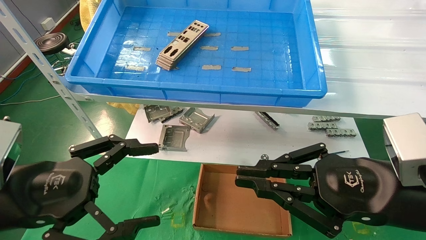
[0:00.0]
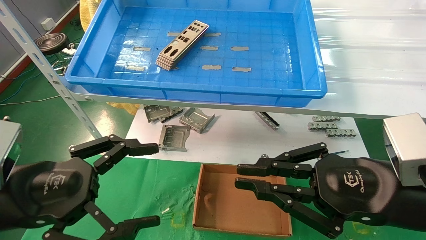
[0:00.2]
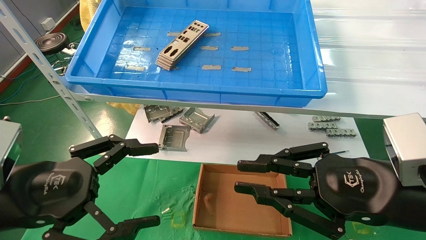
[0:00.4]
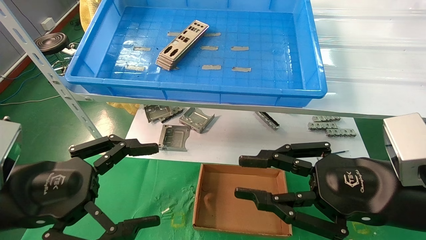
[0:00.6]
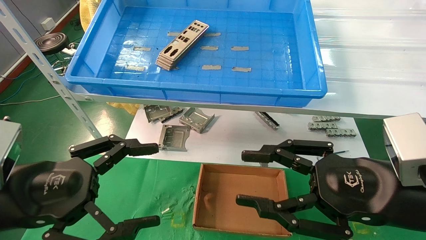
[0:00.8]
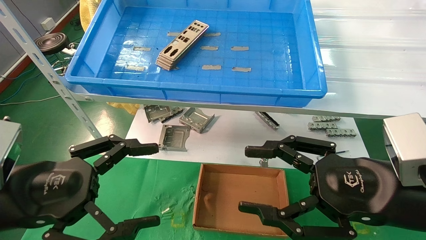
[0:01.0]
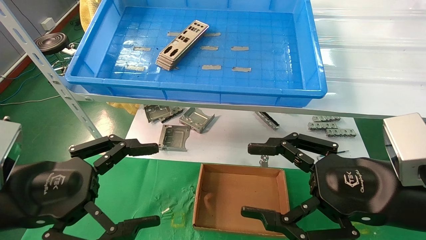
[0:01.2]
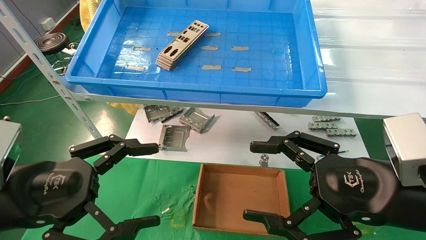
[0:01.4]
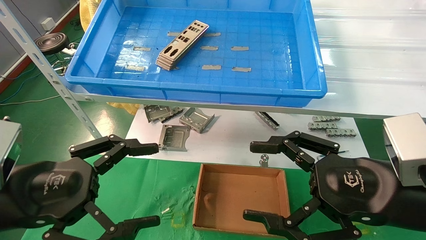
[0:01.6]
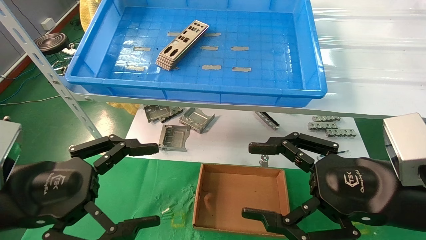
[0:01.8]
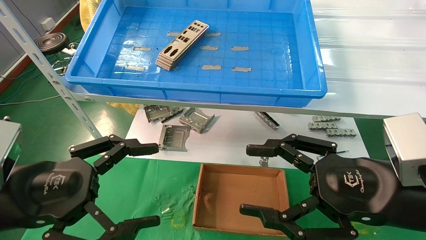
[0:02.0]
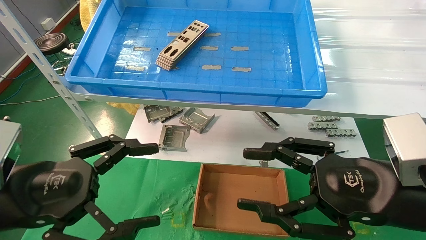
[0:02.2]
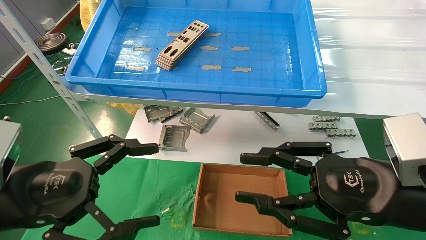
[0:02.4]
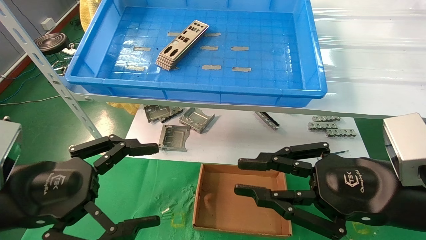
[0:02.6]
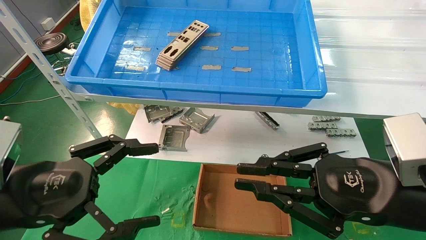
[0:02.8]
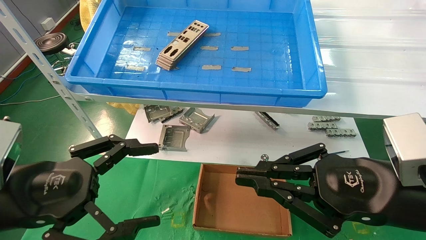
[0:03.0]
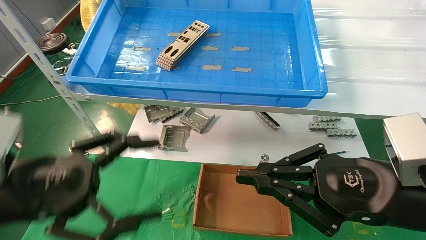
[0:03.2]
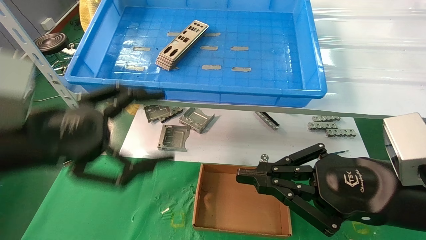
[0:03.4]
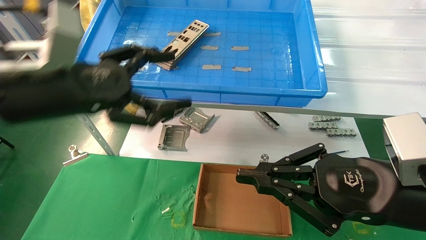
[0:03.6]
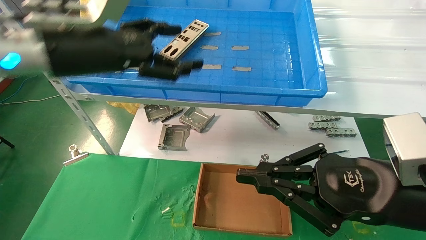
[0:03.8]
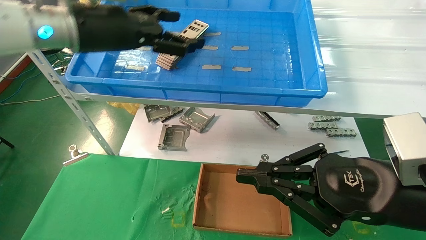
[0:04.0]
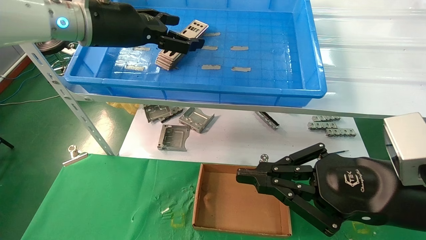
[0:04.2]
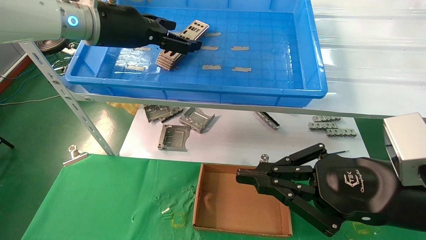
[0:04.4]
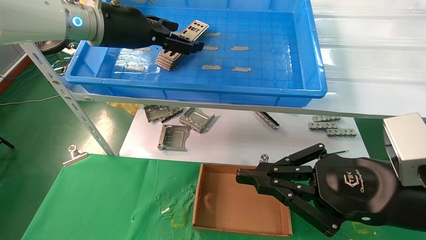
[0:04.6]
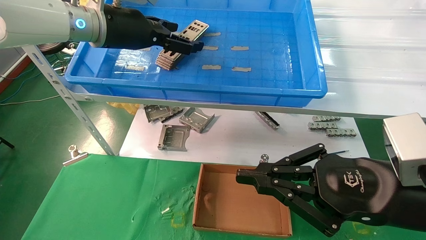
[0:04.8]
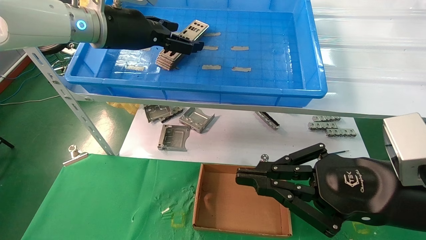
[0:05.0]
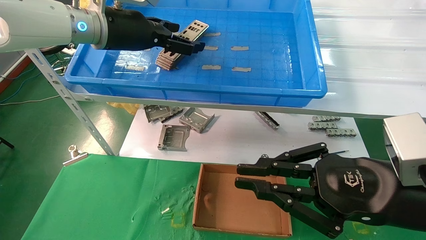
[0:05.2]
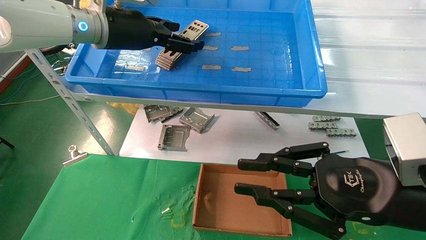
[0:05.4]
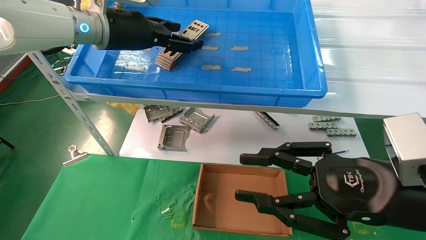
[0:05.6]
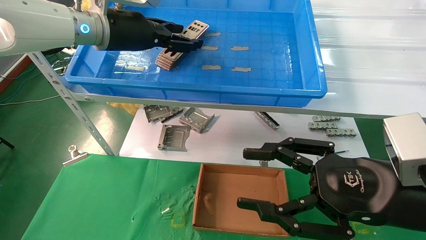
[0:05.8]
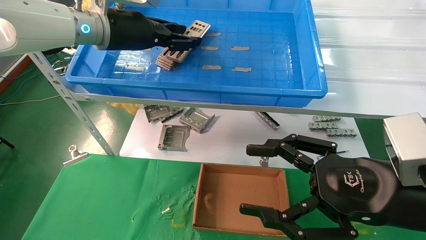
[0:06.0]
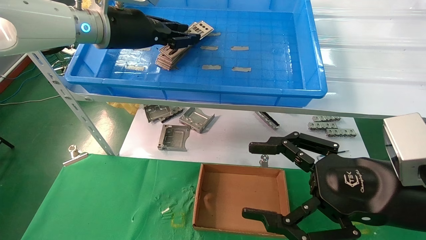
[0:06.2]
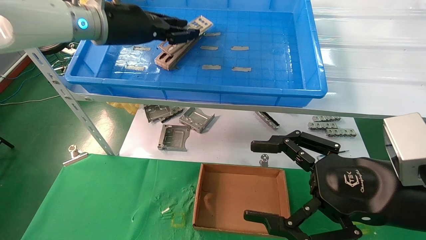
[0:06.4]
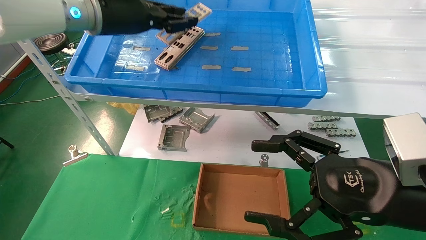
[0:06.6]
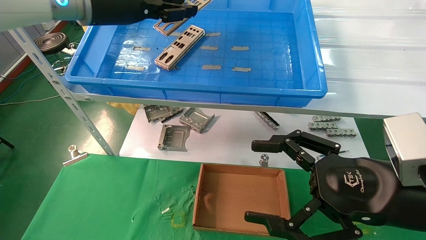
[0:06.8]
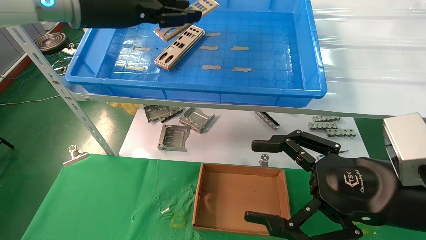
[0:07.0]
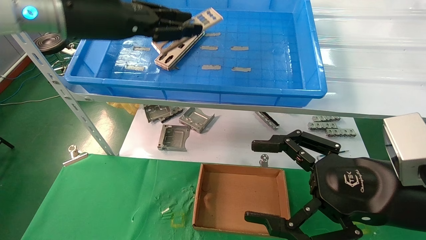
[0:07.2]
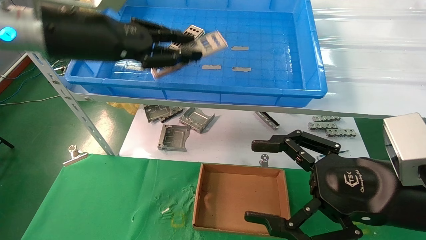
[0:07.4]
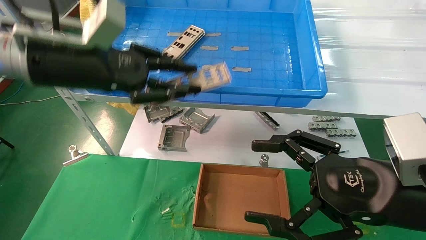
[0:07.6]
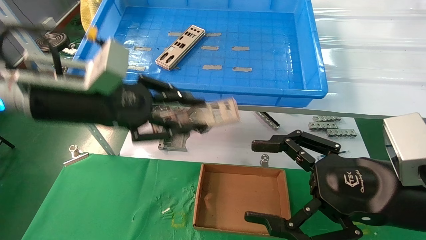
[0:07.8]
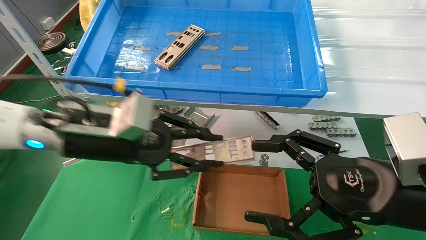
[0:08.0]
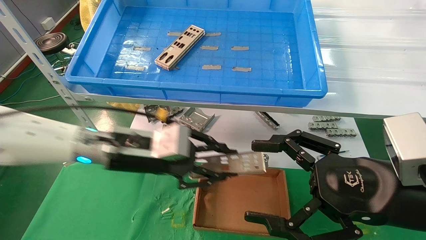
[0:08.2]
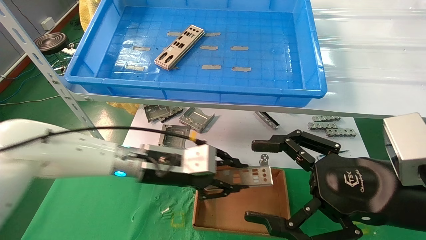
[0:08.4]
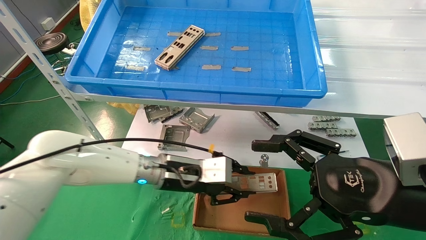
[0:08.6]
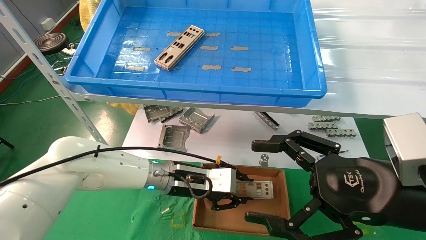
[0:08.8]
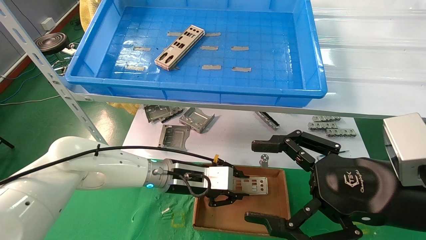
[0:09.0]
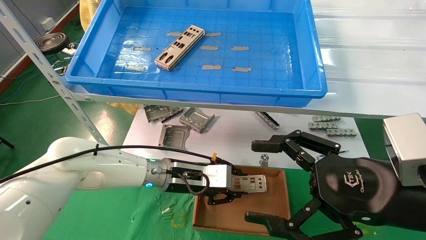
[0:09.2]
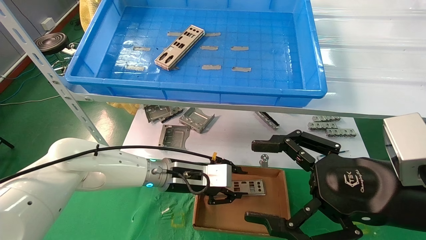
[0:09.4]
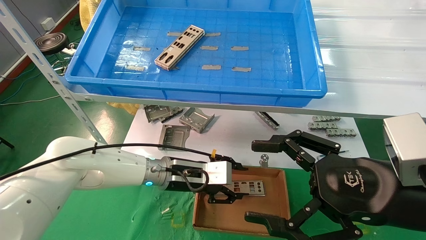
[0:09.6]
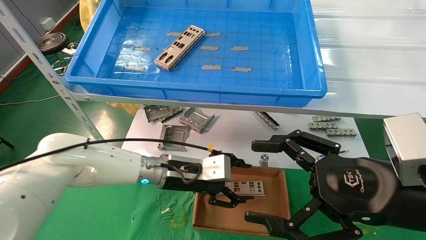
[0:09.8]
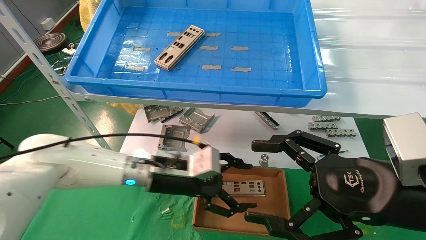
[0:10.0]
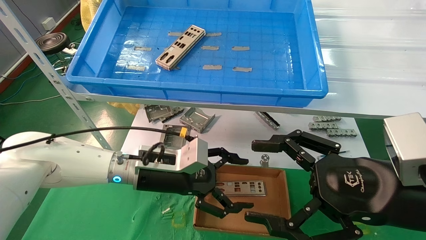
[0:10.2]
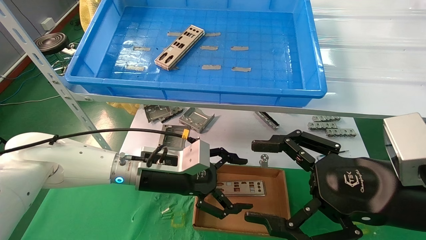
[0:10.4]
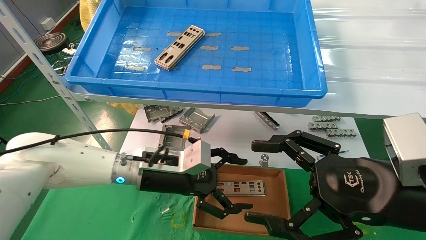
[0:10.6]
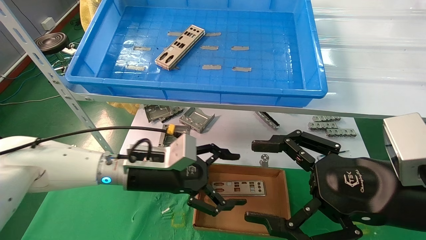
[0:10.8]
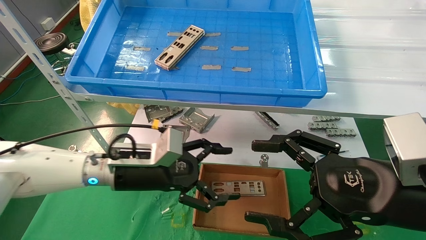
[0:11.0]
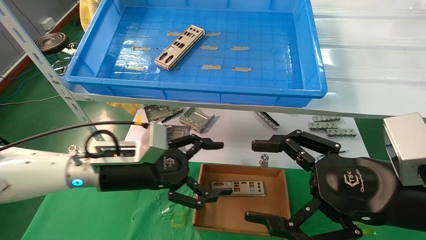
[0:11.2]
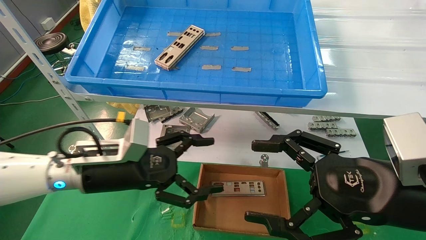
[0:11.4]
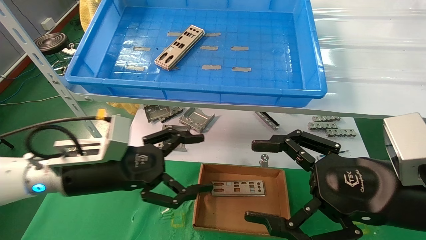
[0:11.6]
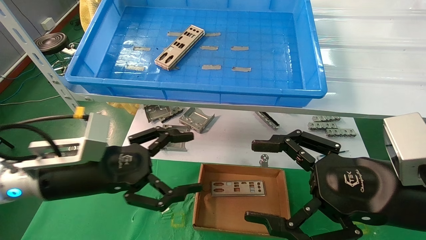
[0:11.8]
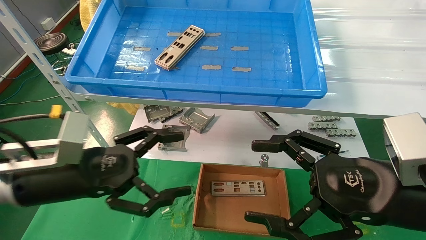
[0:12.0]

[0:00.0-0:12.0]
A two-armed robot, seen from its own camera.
Task of the whole recording: pick up the parts on the tray and put them in the cardboard box.
Step, 0:03.6 to 0:06.2: Pick up the IO bracket from the container box.
Step, 0:06.4 to 0:09.6: Place the IO bracket into the ingredient slot.
0:00.0 to 0:01.6: The right gripper opens its fingers.
0:01.6 to 0:03.0: The right gripper closes its fingers.
0:03.0 to 0:04.4: The left gripper goes roughly 30 cm forward, upward and to the right.
0:04.4 to 0:06.0: The right gripper opens. Meanwhile the left gripper closes up.
0:06.0 to 0:07.6: The left gripper heads backward and downward, covering some 10 cm, and closes.
0:07.6 to 0:09.0: The left gripper travels downward and to the right by some 30 cm.
0:09.0 to 0:10.4: The left gripper ends up approximately 5 cm from where it was, and opens its fingers.
0:10.4 to 0:12.0: The left gripper travels to the left and backward by approximately 15 cm.

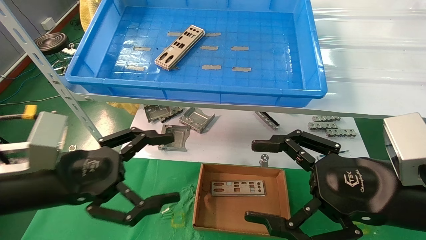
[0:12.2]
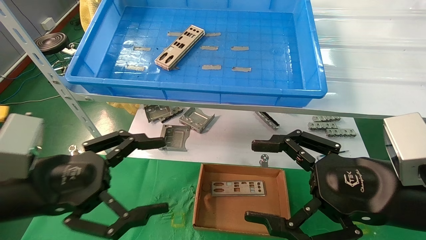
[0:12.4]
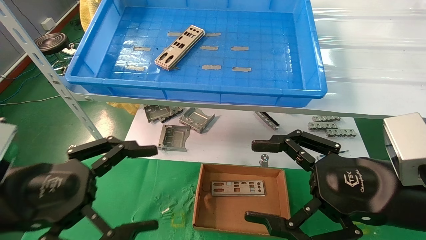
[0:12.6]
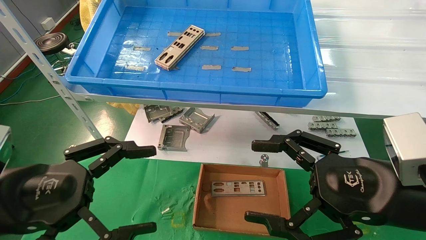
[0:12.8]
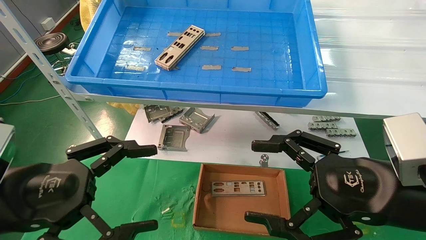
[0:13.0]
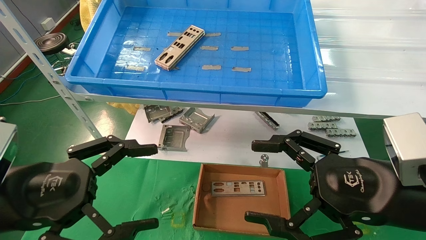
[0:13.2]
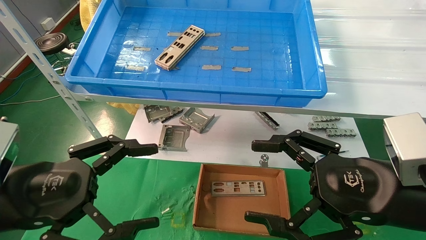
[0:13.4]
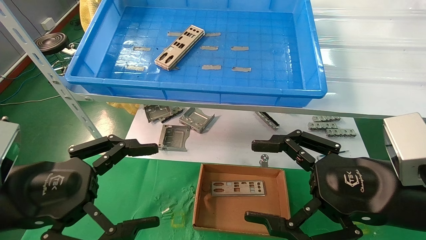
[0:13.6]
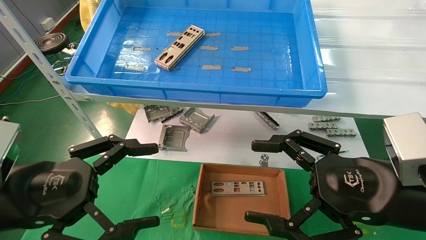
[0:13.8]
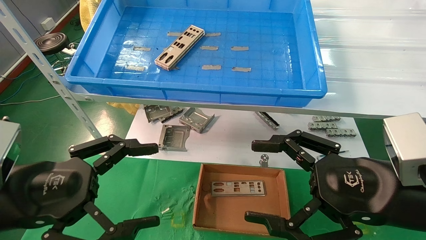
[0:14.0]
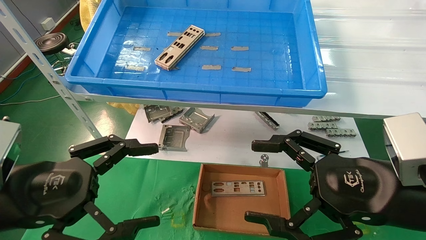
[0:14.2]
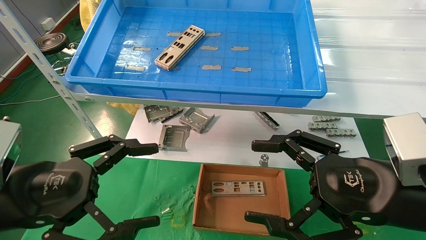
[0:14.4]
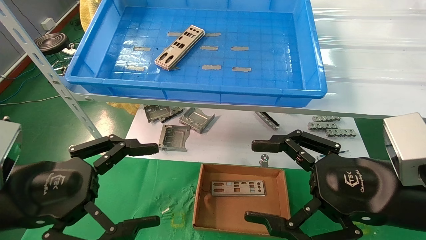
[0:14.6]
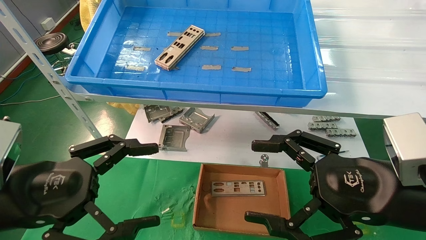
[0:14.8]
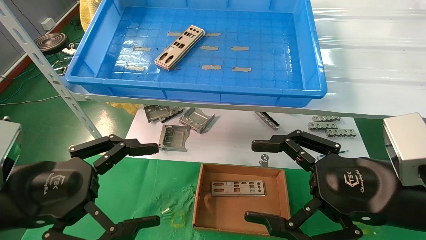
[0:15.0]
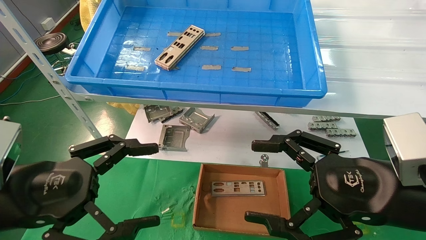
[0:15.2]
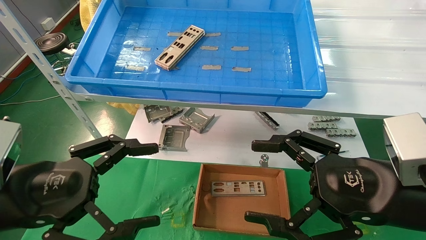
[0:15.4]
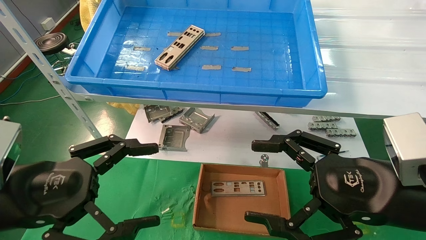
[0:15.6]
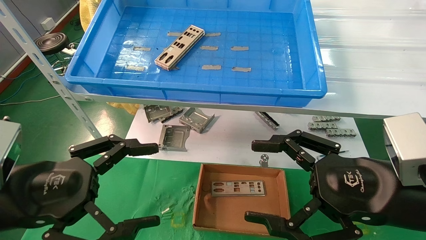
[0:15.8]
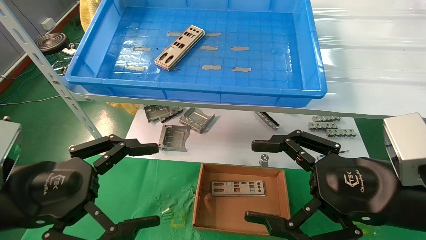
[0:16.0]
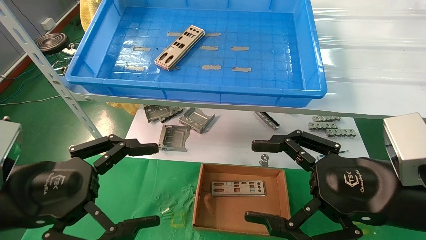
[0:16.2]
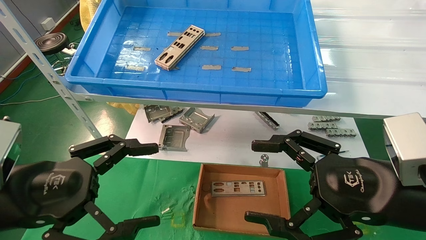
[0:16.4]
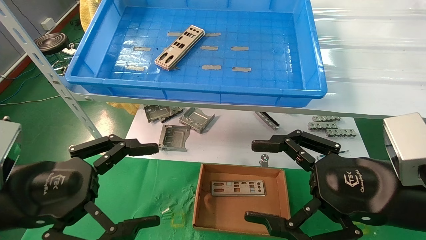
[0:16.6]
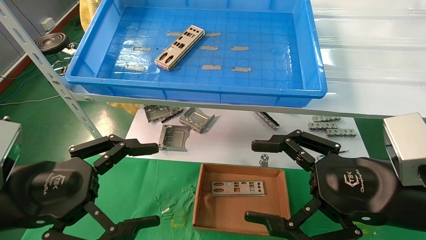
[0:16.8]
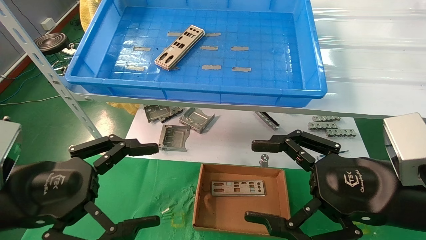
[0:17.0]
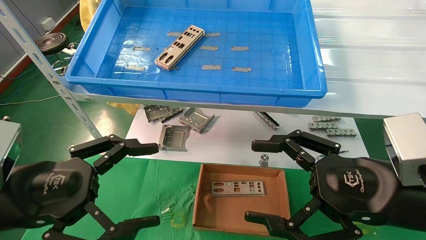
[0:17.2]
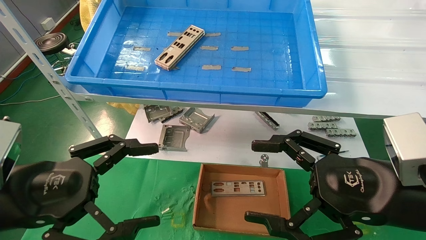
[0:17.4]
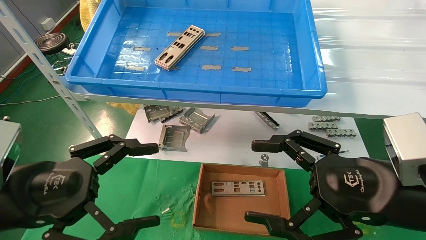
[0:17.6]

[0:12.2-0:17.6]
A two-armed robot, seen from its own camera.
Task of the whole recording: pick up the parts on the tray and put them in the cardboard box.
0:12.2 to 0:13.6: The grippers stay close to where they were, moving slightly.
0:13.6 to 0:17.6: Neither gripper changes place.
